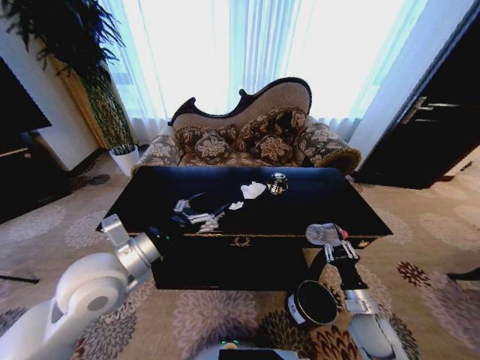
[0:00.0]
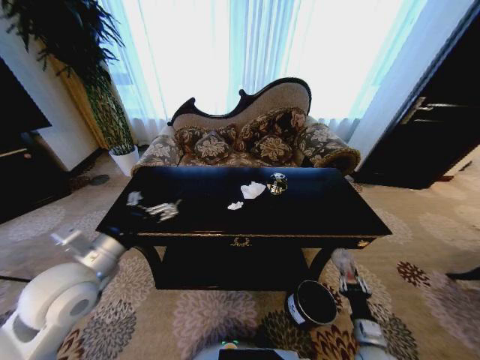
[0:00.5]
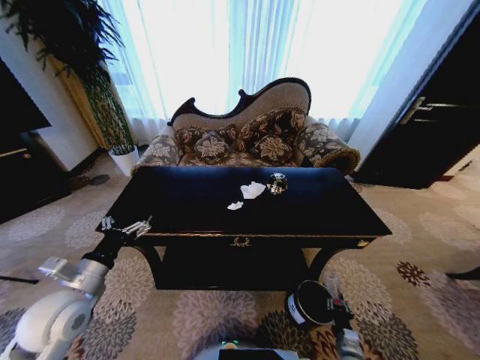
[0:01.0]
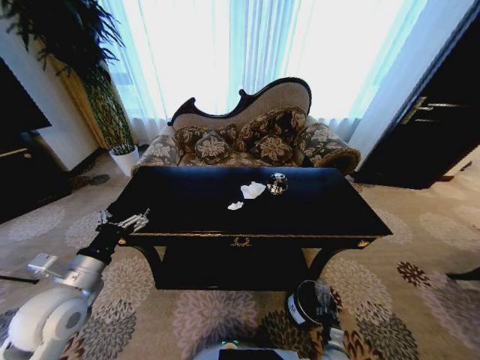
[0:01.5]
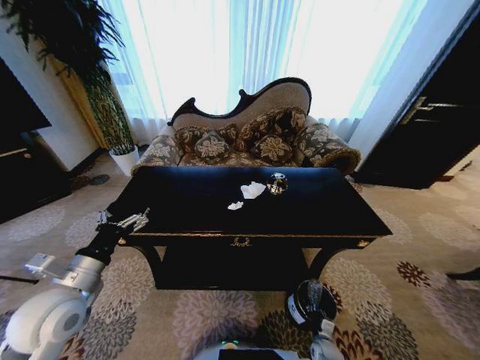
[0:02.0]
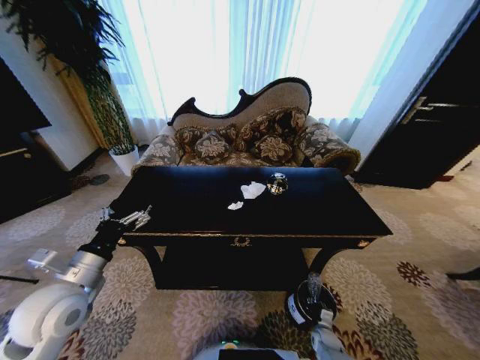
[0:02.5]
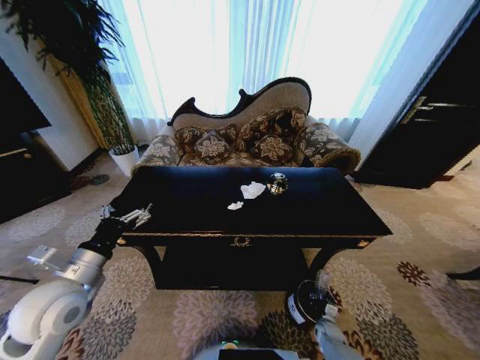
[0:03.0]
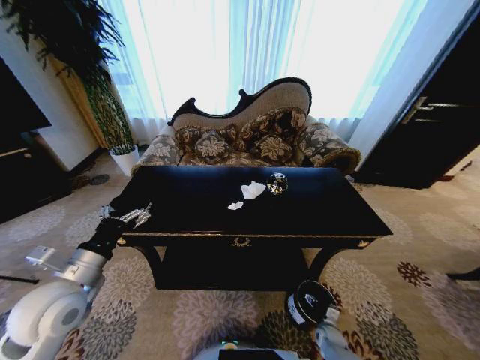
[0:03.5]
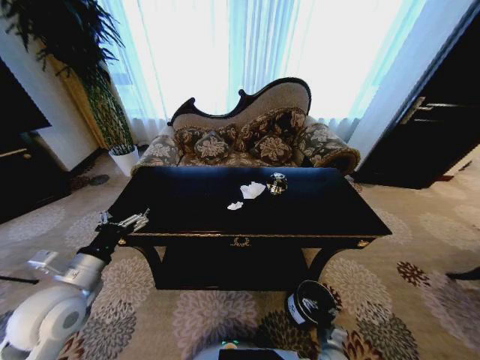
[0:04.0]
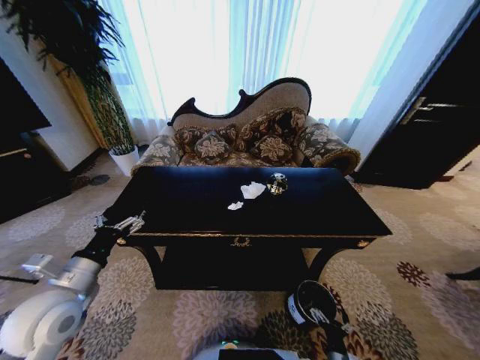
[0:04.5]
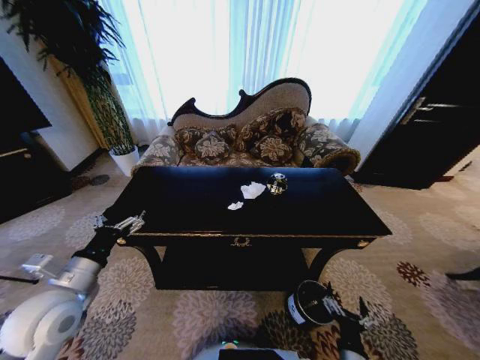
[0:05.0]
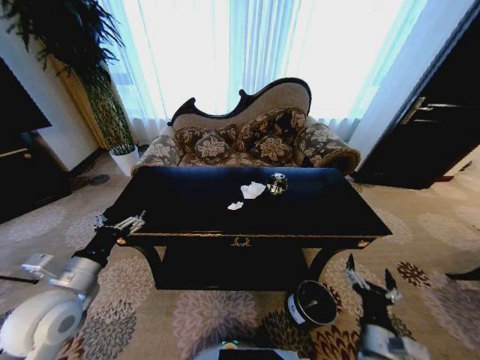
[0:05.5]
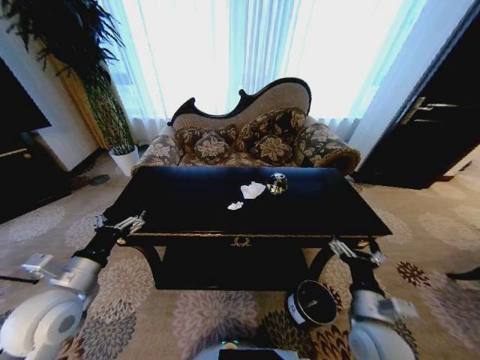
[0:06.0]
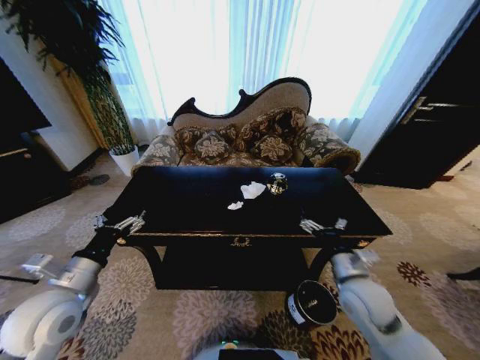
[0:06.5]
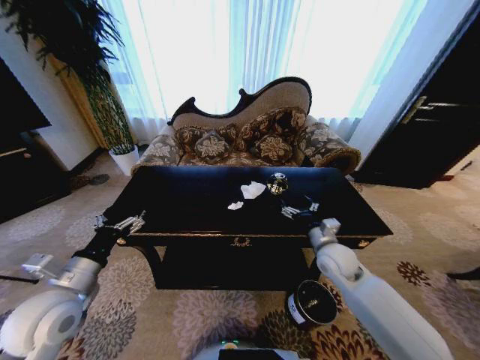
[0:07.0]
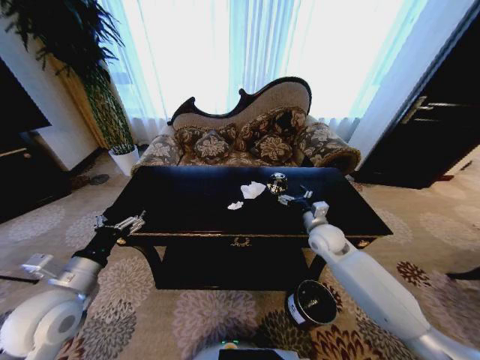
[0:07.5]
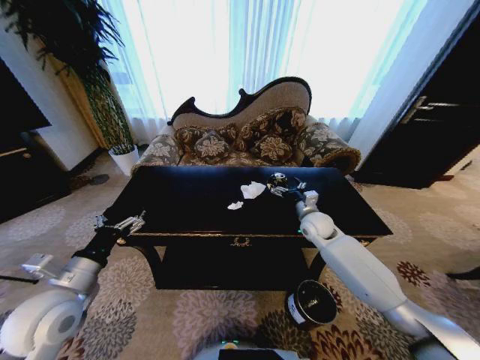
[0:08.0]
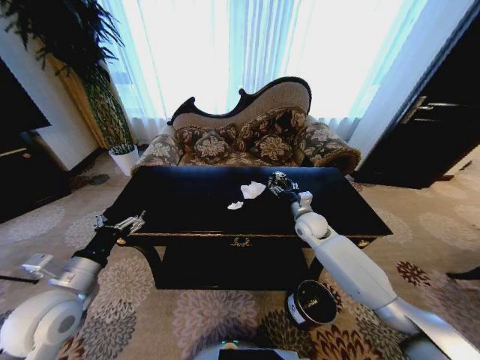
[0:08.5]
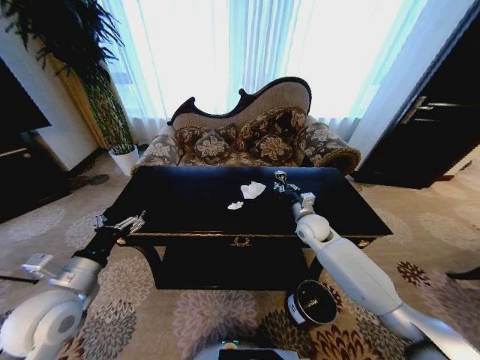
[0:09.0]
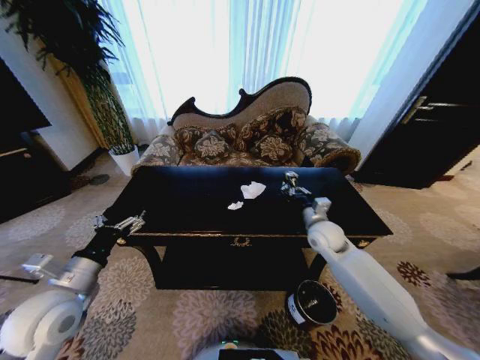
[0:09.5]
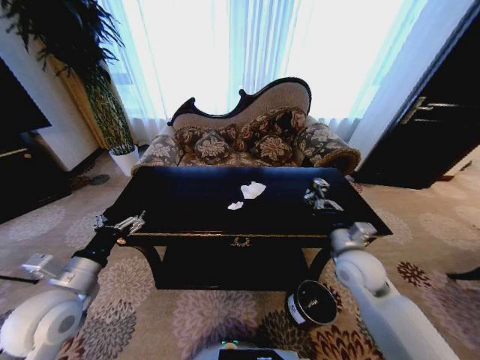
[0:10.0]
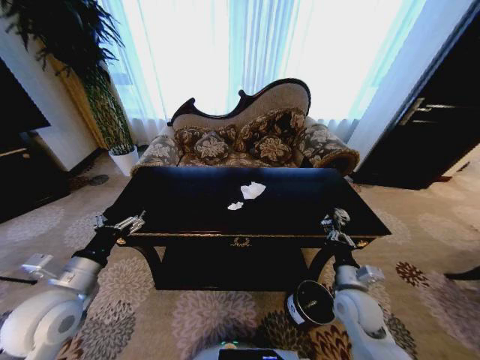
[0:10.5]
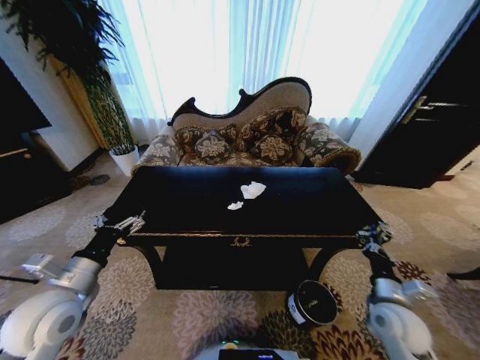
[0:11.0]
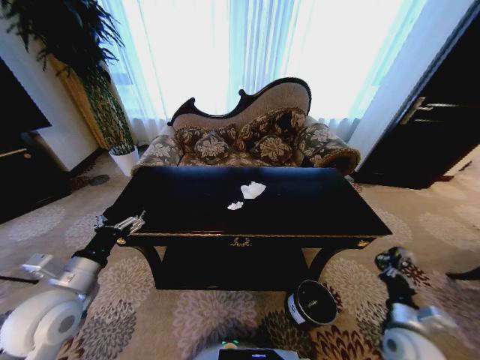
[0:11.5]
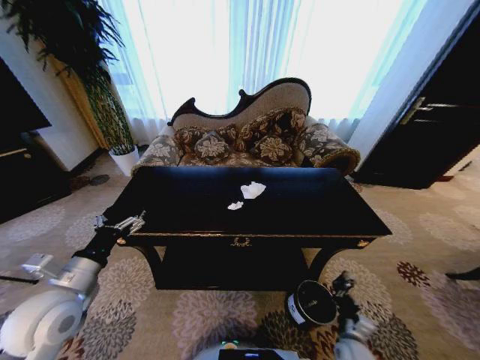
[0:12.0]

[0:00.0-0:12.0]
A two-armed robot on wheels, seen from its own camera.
Task of the whole recording: Move to the front of the table and place the trash on the table into the trash bin.
0:00.0 to 0:02.0: The right gripper shifts about 25 cm downward, while the left gripper is displaced to the left and downward by roughly 10 cm.
0:02.0 to 0:04.0: The right gripper travels forward and back again, approximately 5 cm each way, and opens its fingers.
0:04.0 to 0:06.0: The right gripper is displaced upward by some 30 cm.
0:06.0 to 0:08.0: The right gripper travels forward by some 30 cm.
0:08.0 to 0:10.0: The right gripper travels backward by roughly 15 cm, and closes.
0:10.0 to 0:12.0: The right gripper goes approximately 30 cm downward and backward.

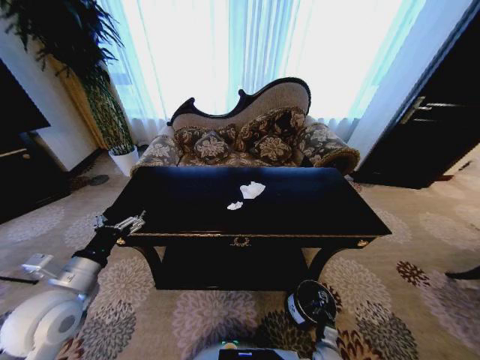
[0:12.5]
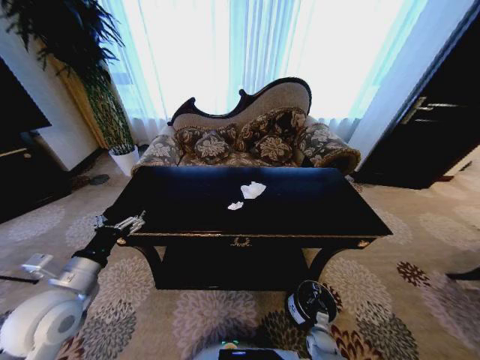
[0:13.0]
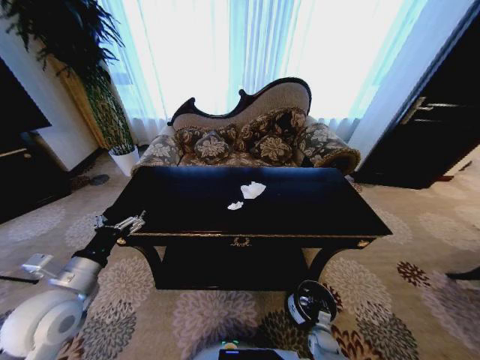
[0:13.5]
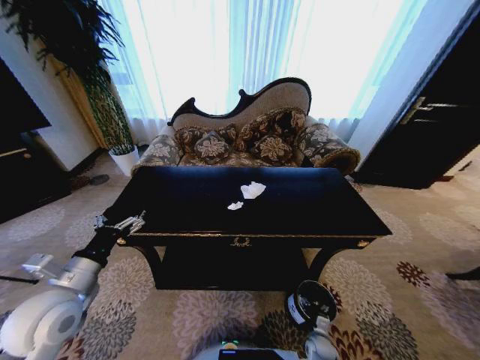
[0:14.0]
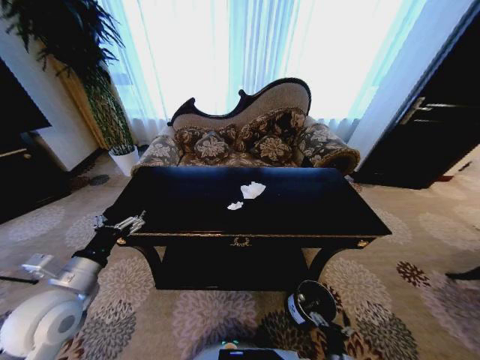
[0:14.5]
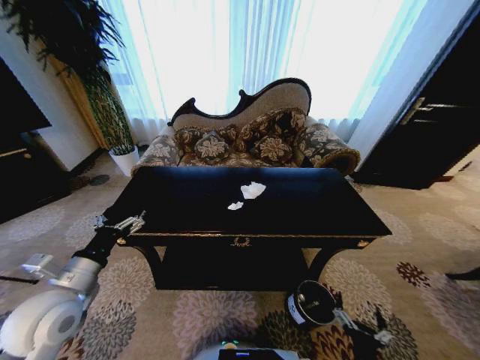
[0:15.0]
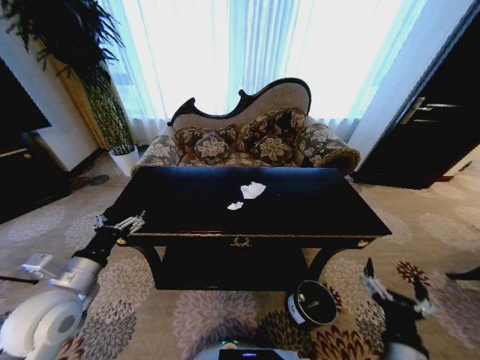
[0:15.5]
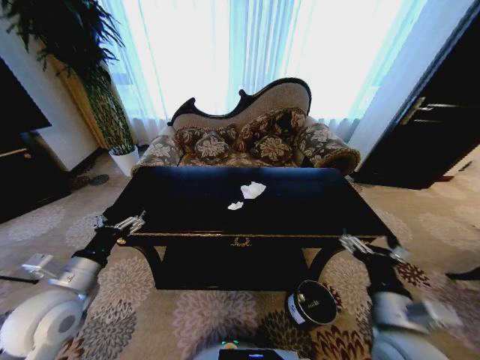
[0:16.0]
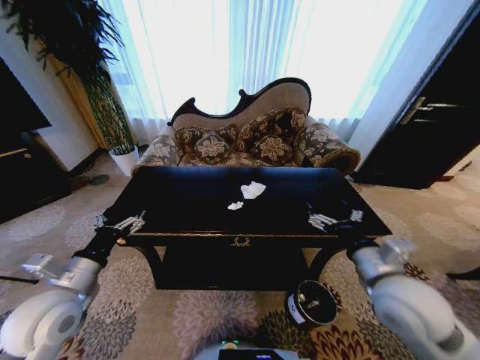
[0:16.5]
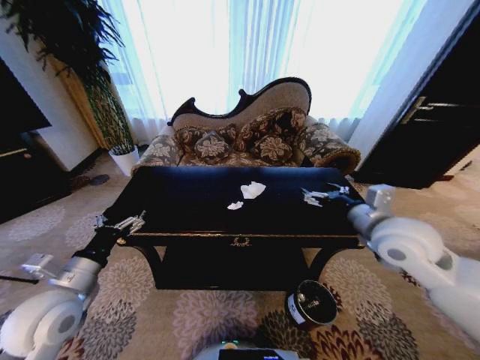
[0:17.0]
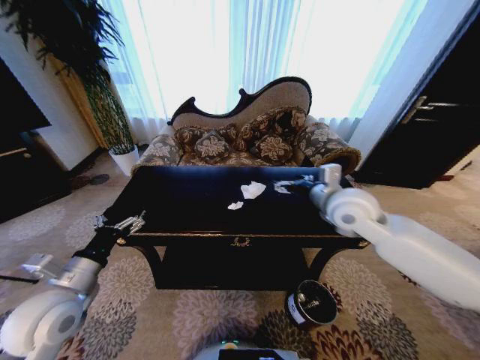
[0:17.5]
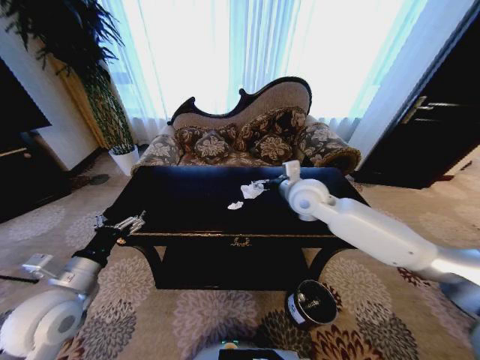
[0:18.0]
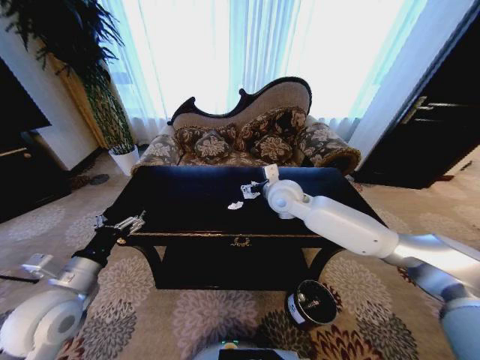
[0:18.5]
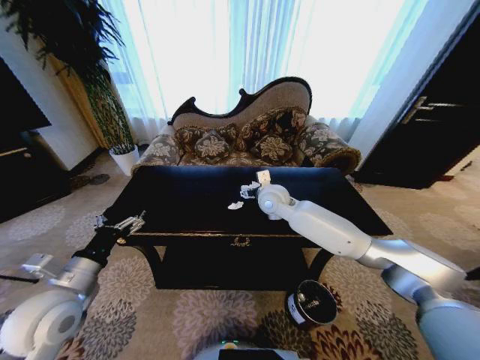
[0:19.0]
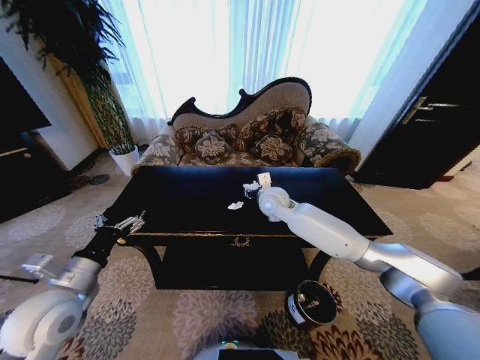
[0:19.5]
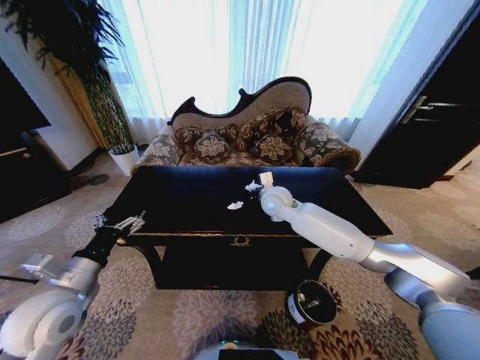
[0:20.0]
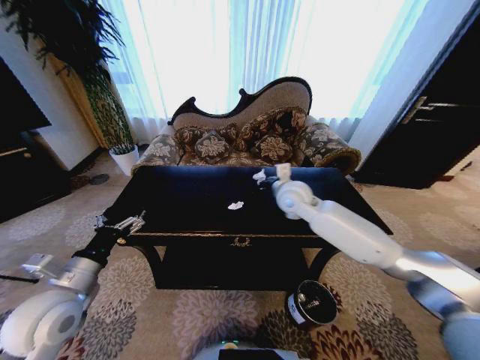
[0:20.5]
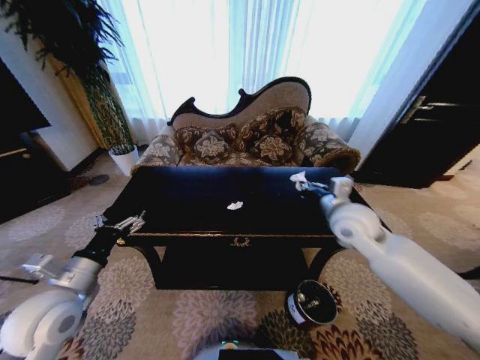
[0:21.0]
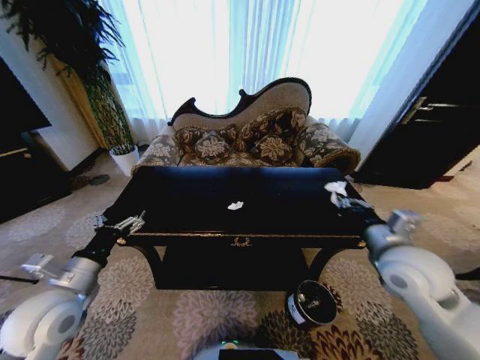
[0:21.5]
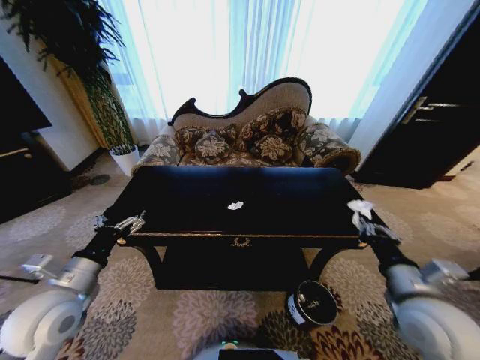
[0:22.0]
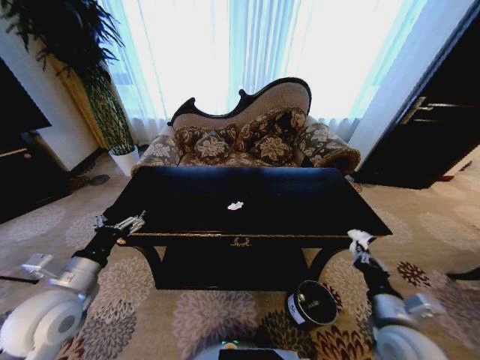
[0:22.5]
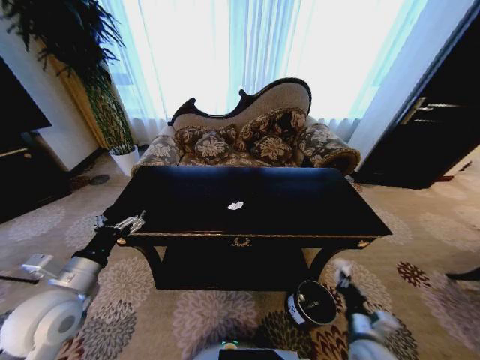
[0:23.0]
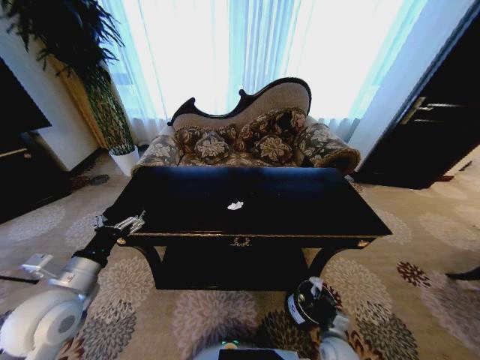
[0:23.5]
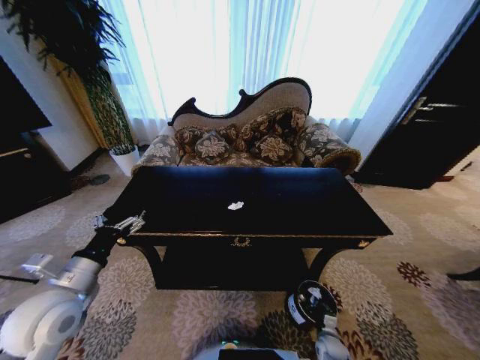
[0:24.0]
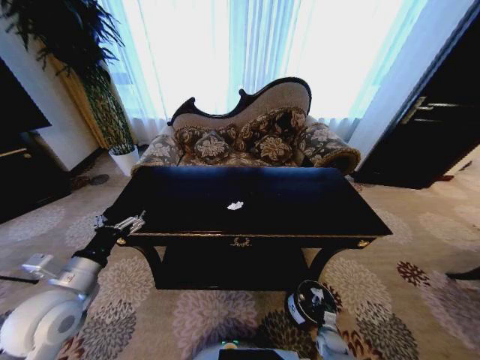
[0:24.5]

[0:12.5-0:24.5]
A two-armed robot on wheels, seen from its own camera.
Task of the whole recording: Move to the front of the table and place the trash on the table into the trash bin.
0:12.5 to 0:14.5: The right gripper is displaced upward and backward by about 15 cm, and opens up.
0:14.5 to 0:16.5: The right gripper moves upward, approximately 35 cm.
0:16.5 to 0:18.5: The right gripper travels forward and to the left by some 30 cm.
0:18.5 to 0:20.5: The right gripper closes its fingers.
0:20.5 to 0:22.5: The right gripper goes about 40 cm backward, to the right and downward.
0:22.5 to 0:24.5: The right gripper is displaced downward by about 35 cm.

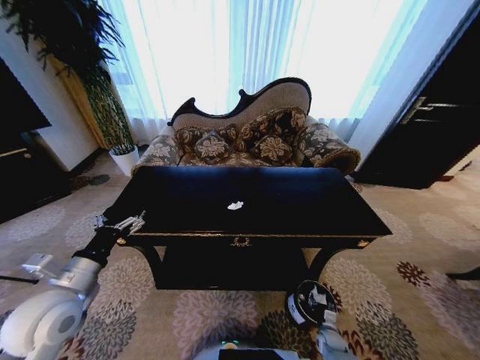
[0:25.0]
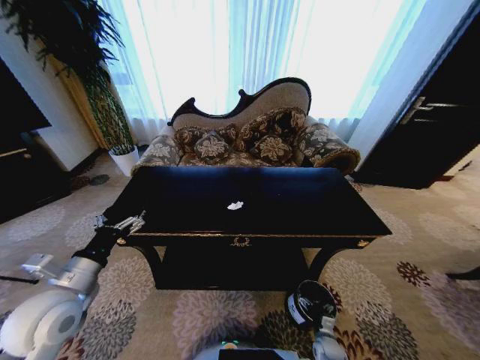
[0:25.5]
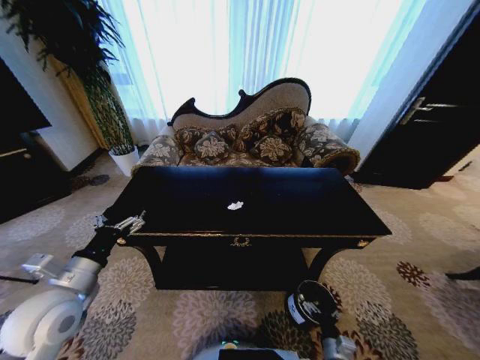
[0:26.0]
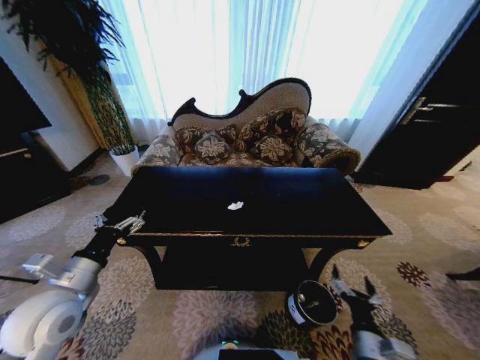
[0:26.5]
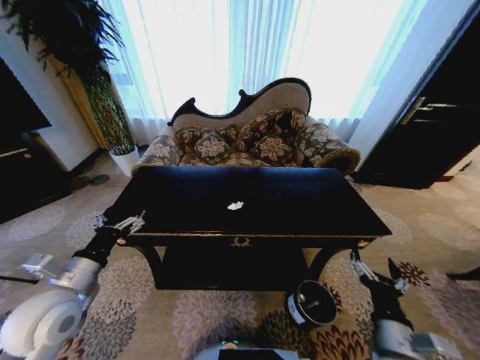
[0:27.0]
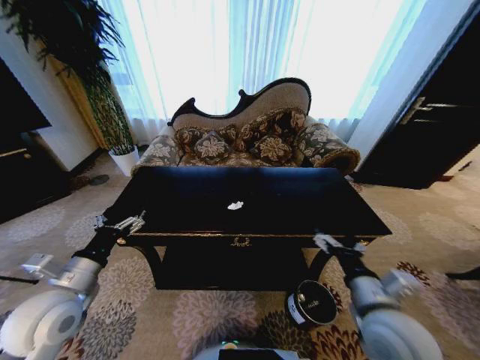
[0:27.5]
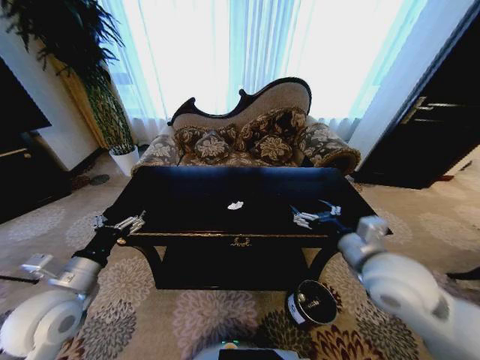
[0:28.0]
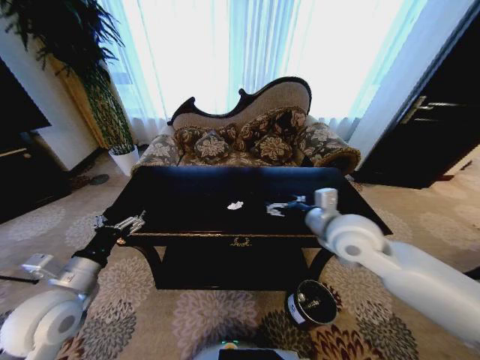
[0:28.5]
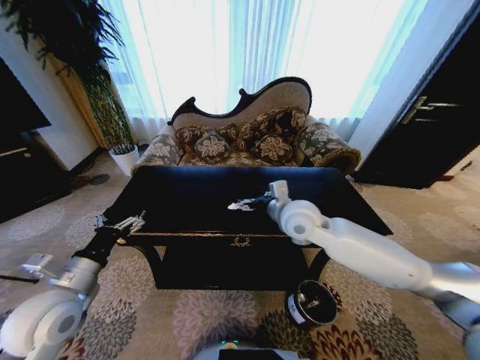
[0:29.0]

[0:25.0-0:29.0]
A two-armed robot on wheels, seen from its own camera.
Task of the whole recording: Move to the front of the table and place the trash on the table into the trash bin.
0:25.0 to 0:27.0: The right gripper shifts roughly 35 cm upward, and opens.
0:27.0 to 0:29.0: The right gripper moves forward, upward and to the left, about 35 cm.
